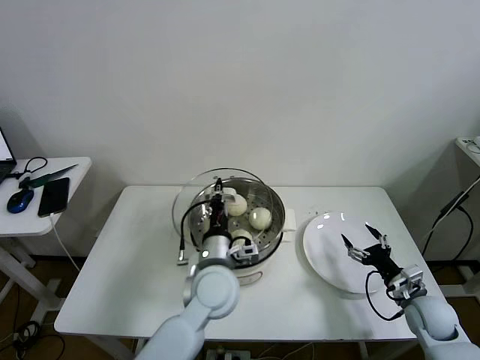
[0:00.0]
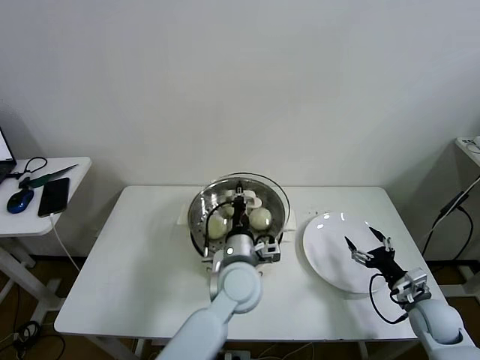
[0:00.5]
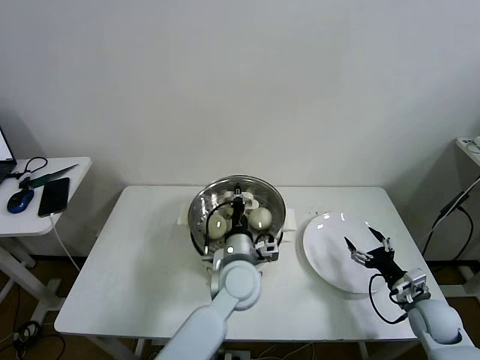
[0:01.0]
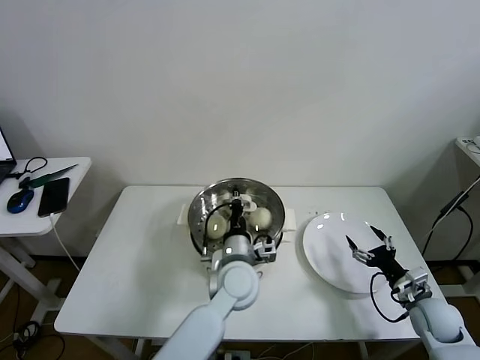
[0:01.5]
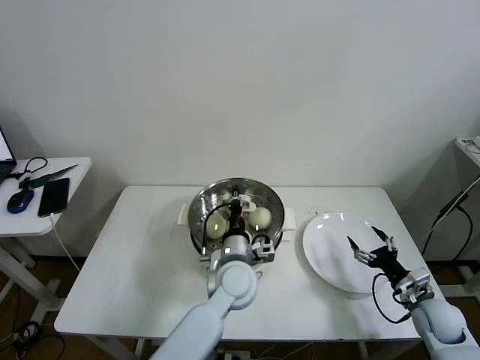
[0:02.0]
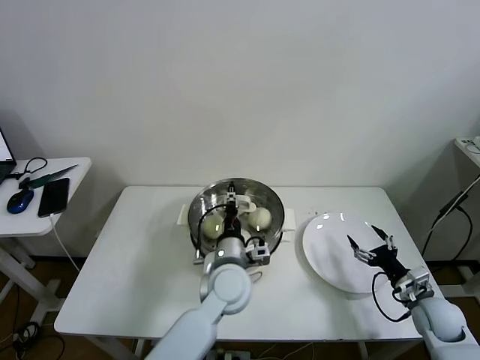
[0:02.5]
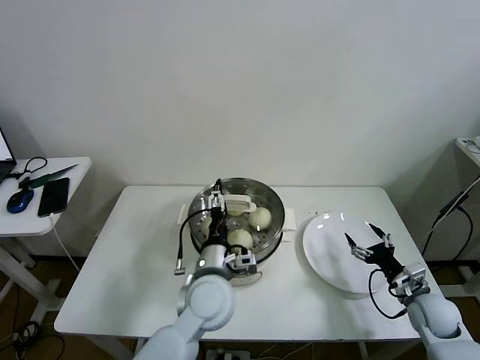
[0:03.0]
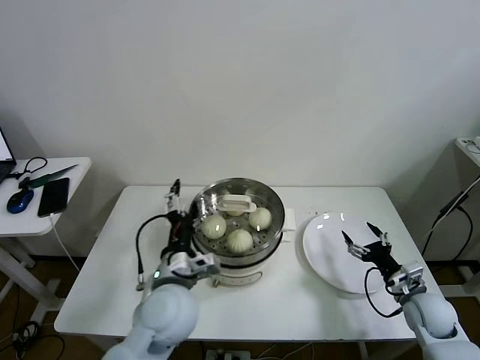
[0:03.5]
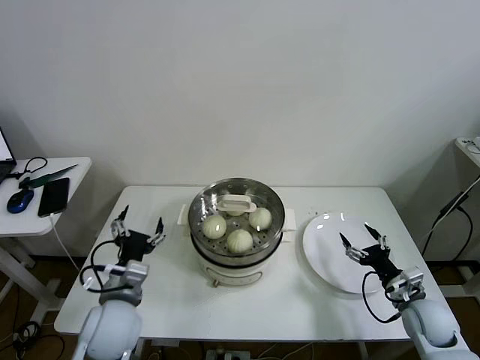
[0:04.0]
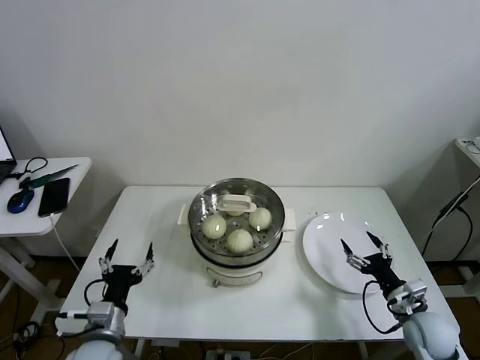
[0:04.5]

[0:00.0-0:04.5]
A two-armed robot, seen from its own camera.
Task of the whole recording: take steamed baozi put them in steamer then cover it.
Step, 0:00.0 to 0:02.0: Place the pot lid on the steamer with left gripper.
0:00.0 to 0:02.0: The left gripper moves roughly 5 cm.
0:02.0 to 0:04.5: The left gripper travels to the left and backward by approximately 30 cm, and opens.

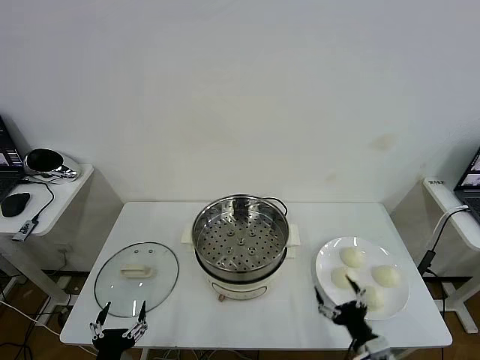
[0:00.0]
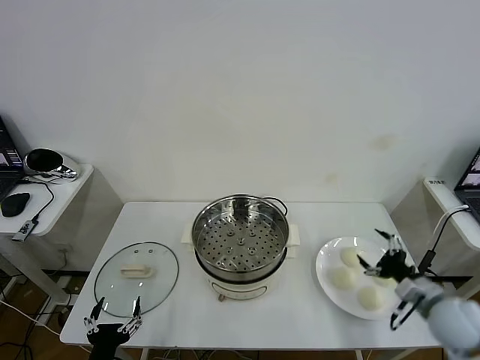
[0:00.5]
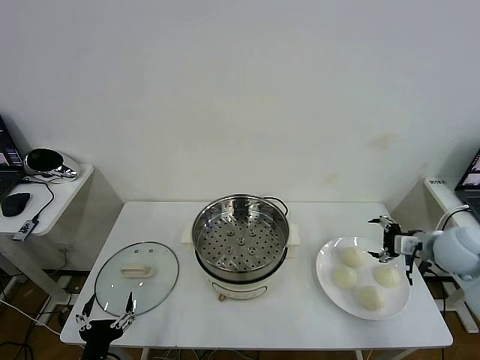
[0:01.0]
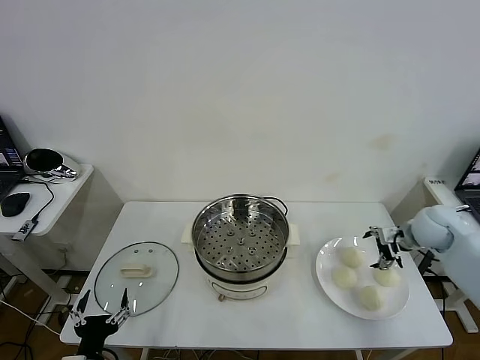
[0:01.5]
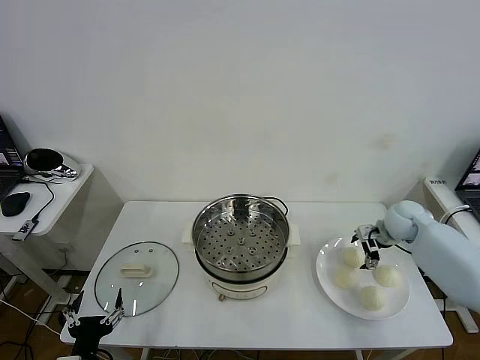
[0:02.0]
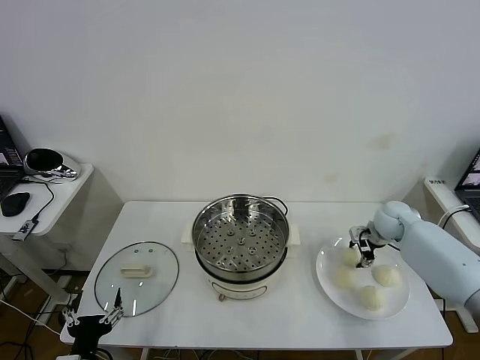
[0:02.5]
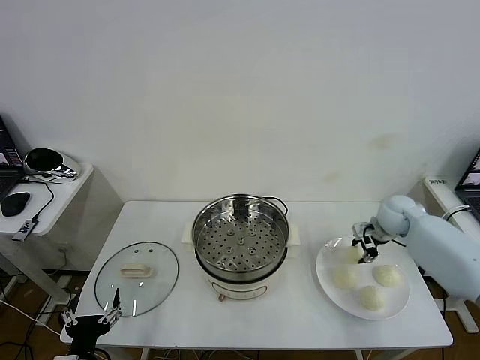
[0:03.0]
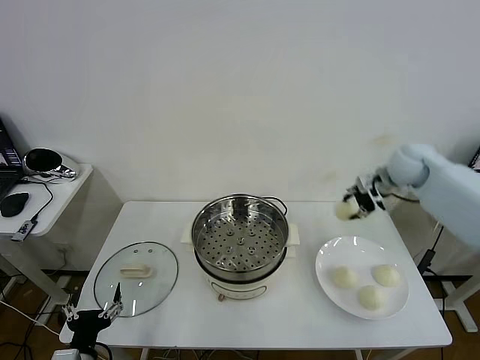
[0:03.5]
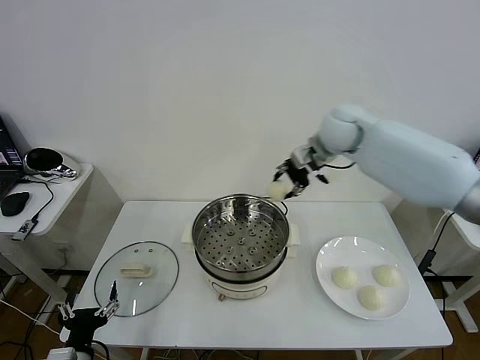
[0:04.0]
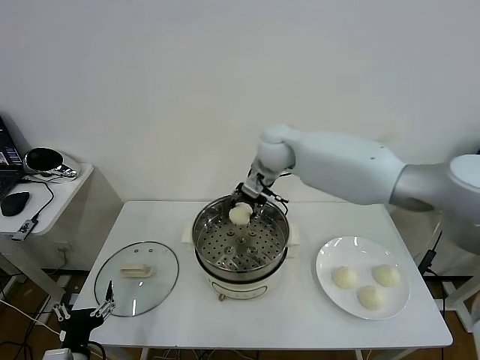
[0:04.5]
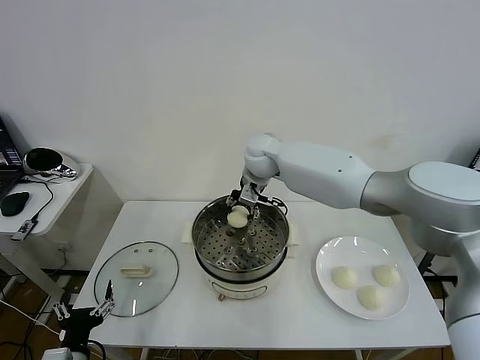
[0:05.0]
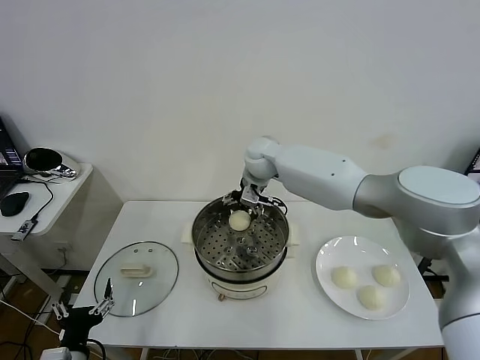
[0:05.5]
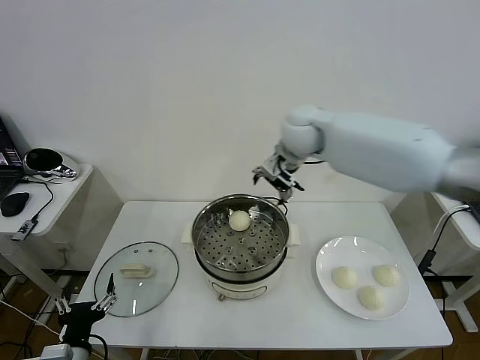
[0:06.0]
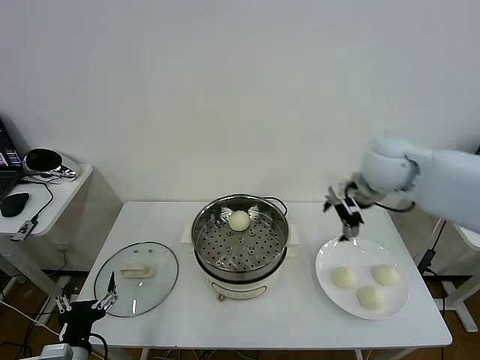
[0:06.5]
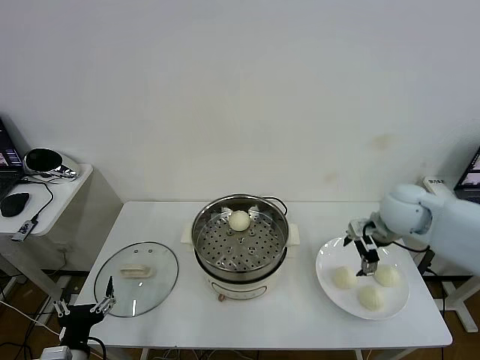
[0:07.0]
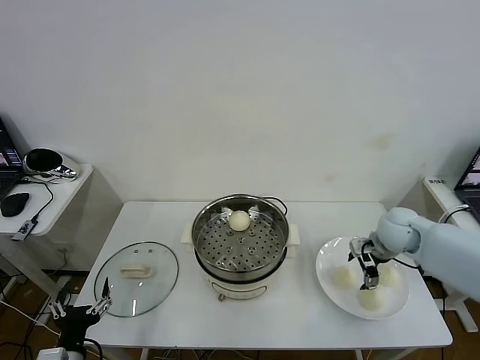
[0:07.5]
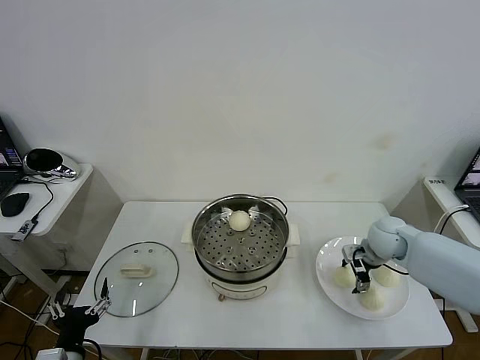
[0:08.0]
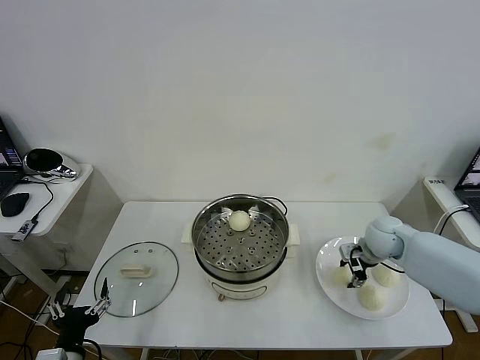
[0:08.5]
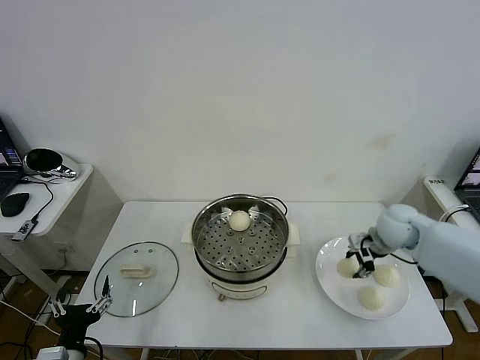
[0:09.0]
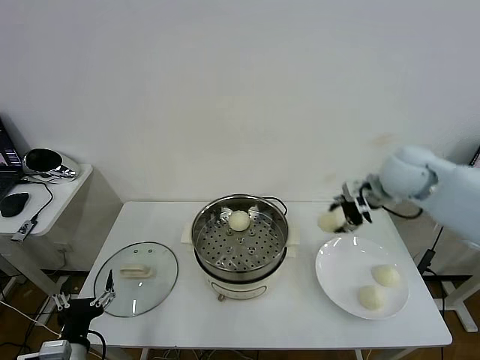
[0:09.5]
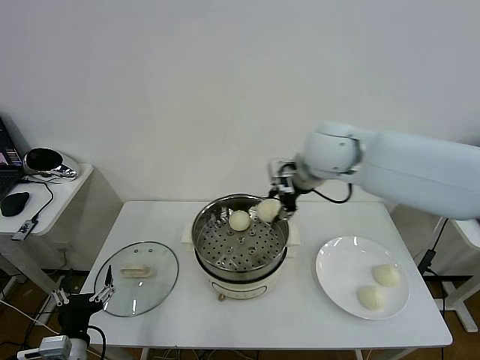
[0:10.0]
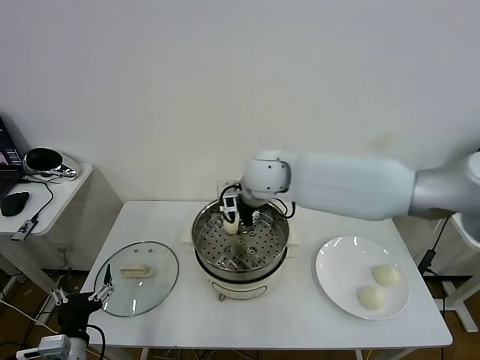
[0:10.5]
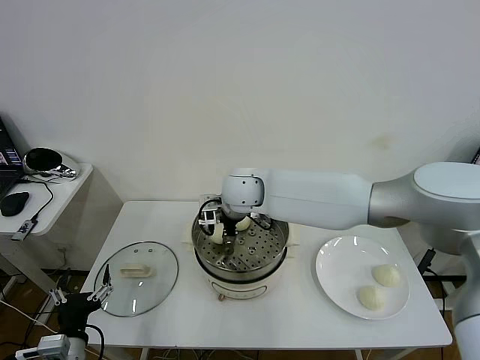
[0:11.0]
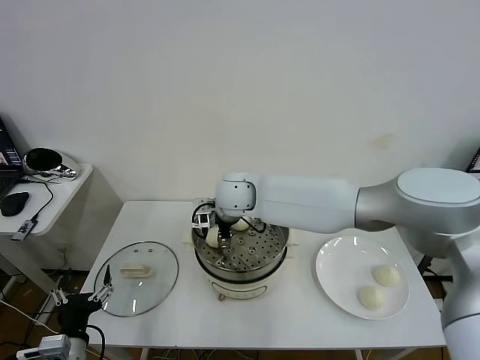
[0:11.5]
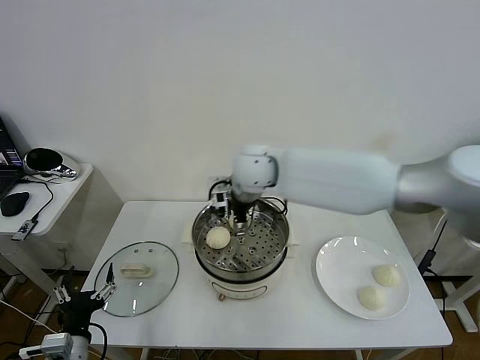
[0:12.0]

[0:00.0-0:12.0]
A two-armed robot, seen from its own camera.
Task of the whole recording: take steamed baozi put them in steamer then cover it.
Step, 0:00.0 to 0:02.5: Grasp the baozi in the plate with right gripper.
Step, 0:03.0 to 0:05.5: Place the baozi on the steamer with right gripper.
Step, 0:06.0 to 0:08.5: Grasp the baozi in the plate with right gripper.
Step, 0:09.0 to 0:11.5: Place the baozi on the steamer with right gripper.
0:02.0 to 0:04.0: The right gripper travels to the left and upward by roughly 35 cm, and closes its fingers.
0:04.0 to 0:06.0: The right gripper reaches about 10 cm to the left, then returns, and opens its fingers.
0:06.0 to 0:08.0: The right gripper moves downward and to the right, approximately 30 cm.
0:08.0 to 0:10.0: The right gripper moves upward and to the left, some 35 cm, and closes its fingers.
0:10.0 to 0:12.0: The right gripper travels to the left by approximately 10 cm, and opens its fingers.

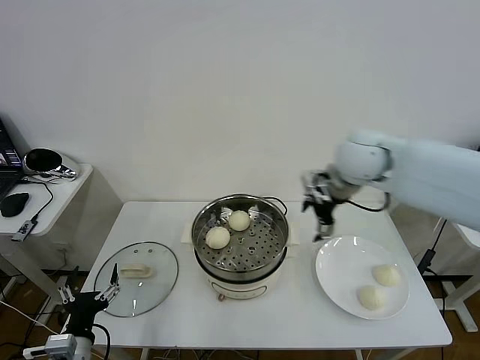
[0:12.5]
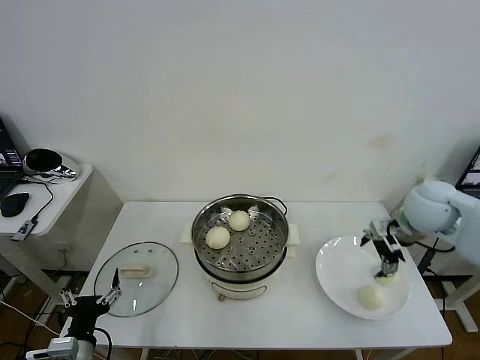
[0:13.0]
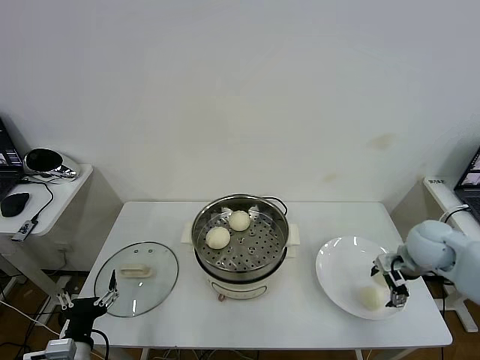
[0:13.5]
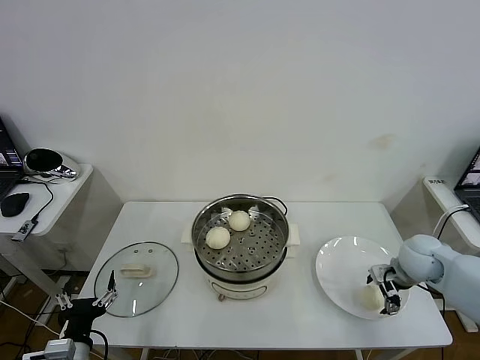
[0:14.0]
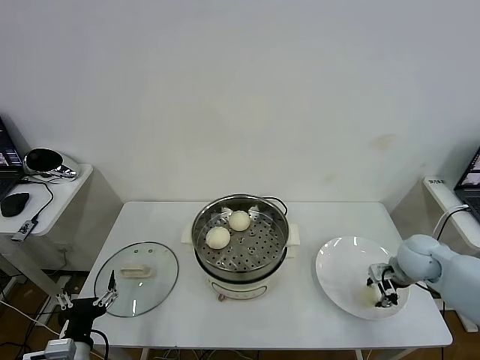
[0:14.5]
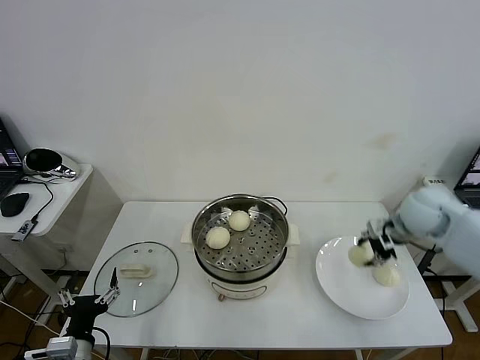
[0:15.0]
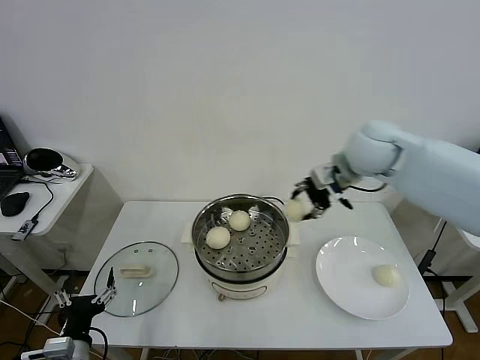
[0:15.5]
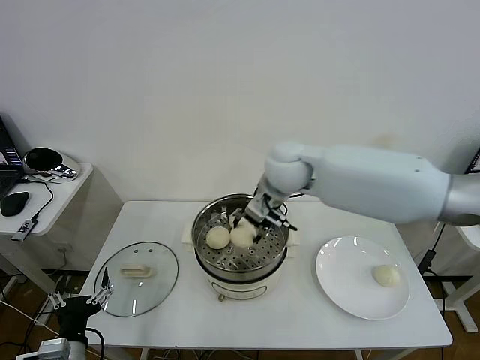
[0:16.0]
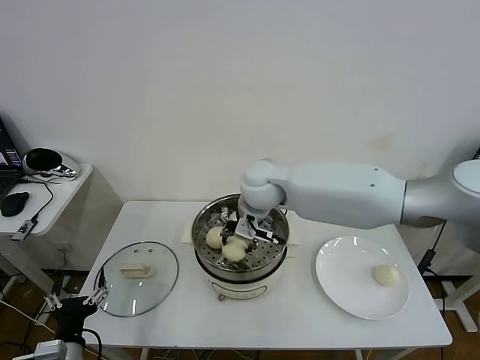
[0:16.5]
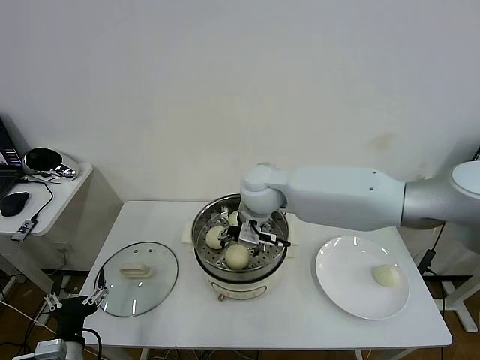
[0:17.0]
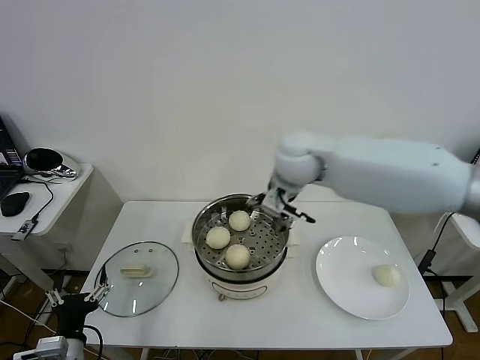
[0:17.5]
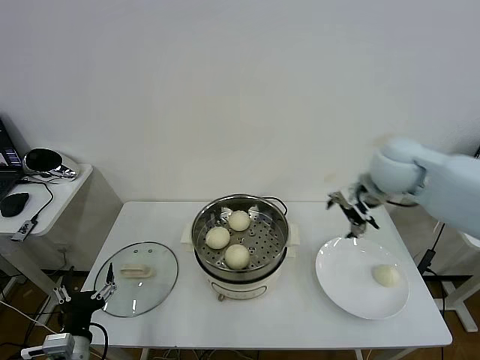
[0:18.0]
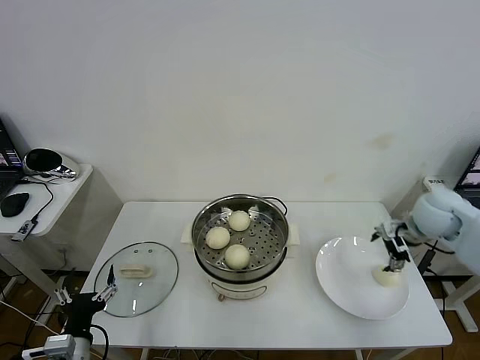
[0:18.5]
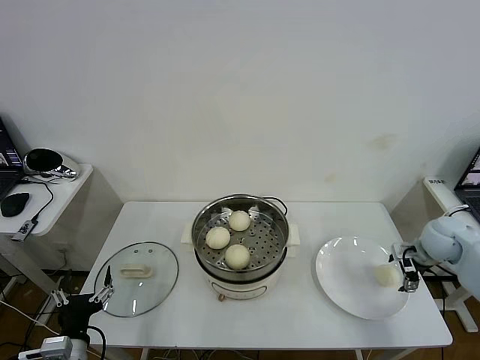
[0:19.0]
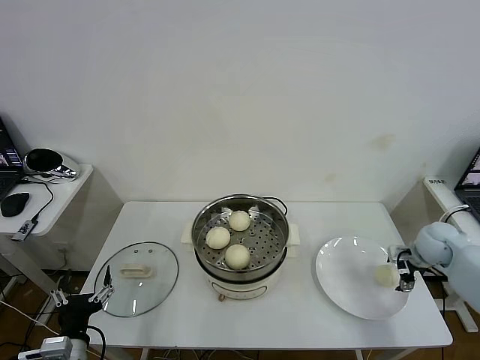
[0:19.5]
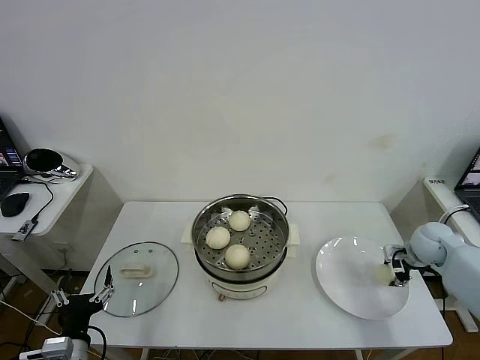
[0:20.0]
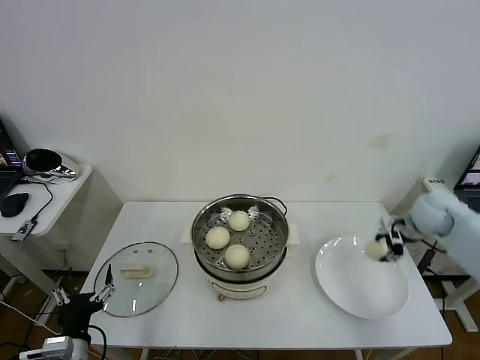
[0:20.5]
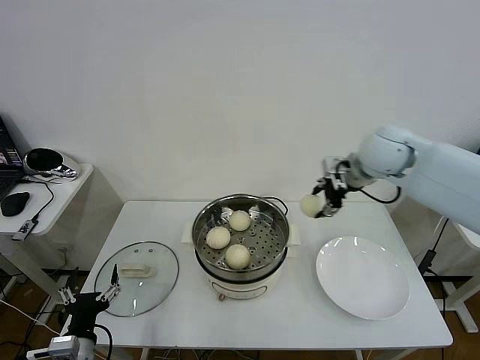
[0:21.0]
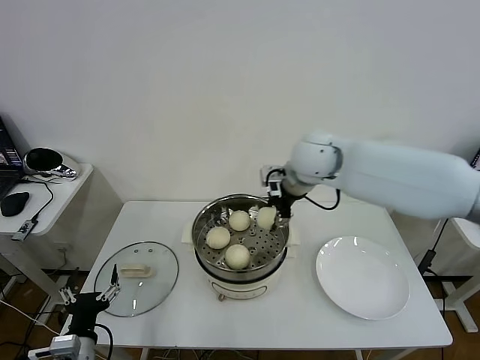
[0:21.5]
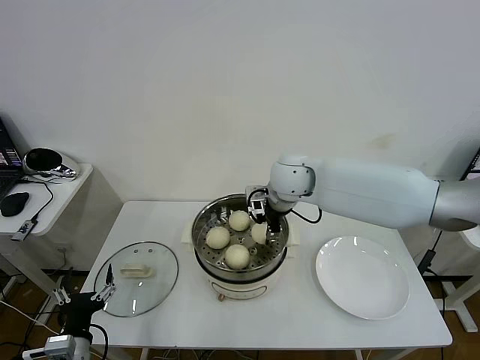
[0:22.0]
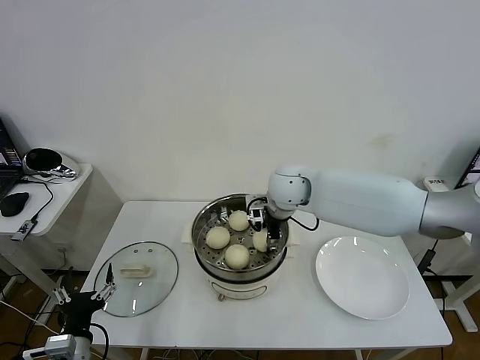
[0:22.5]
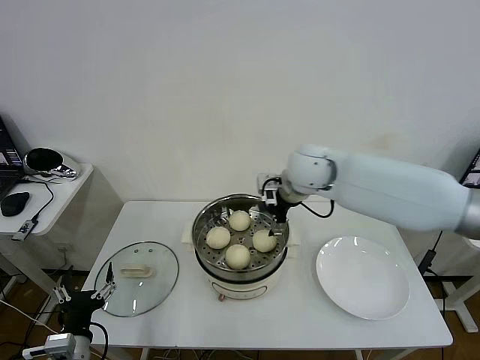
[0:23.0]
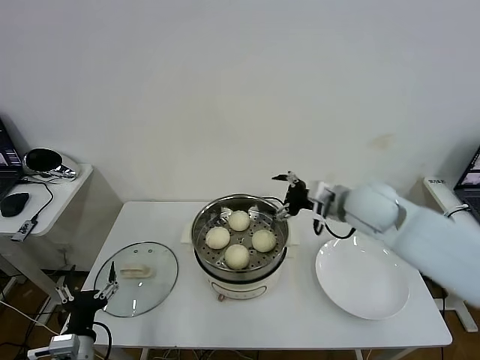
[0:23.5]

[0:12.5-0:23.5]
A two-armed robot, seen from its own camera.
Task of the whole recording: take steamed baozi put them in steamer then cover it.
Step, 0:12.5 to 0:14.5: Grasp the baozi in the plate with right gripper.
Step, 0:15.0 to 0:17.0: Place the baozi on the steamer with right gripper.
Step, 0:17.5 to 0:20.0: Grasp the baozi in the plate with right gripper.
Step, 0:20.5 to 0:22.5: Place the baozi on the steamer with right gripper.
0:12.5 to 0:14.5: The right gripper travels downward and to the right by roughly 25 cm, and closes its fingers.
0:14.5 to 0:16.0: The right gripper travels to the left and upward by about 35 cm.
0:16.0 to 0:18.0: The right gripper is displaced to the right by roughly 25 cm, and opens its fingers.
0:18.0 to 0:20.0: The right gripper moves downward and to the right, about 25 cm, and closes.
0:20.0 to 0:21.5: The right gripper heads to the left and upward, covering approximately 40 cm.
0:21.5 to 0:23.5: The right gripper travels to the right, backward and downward by approximately 15 cm, and opens up.
